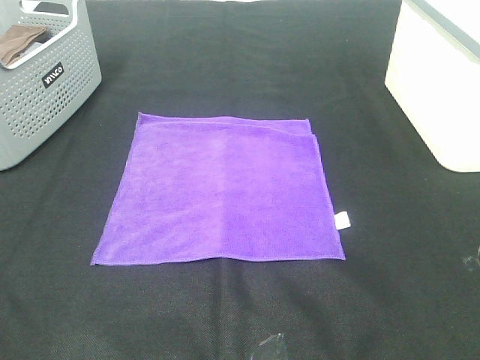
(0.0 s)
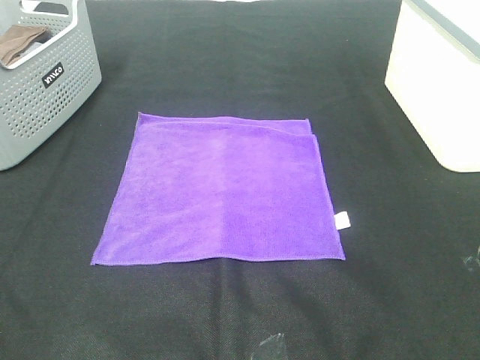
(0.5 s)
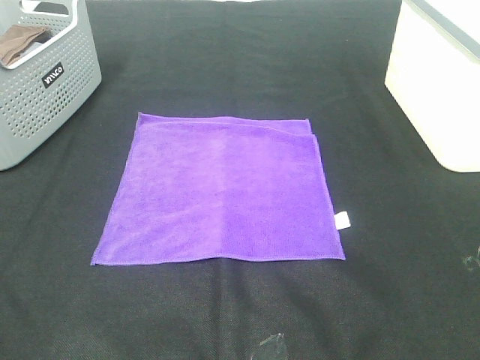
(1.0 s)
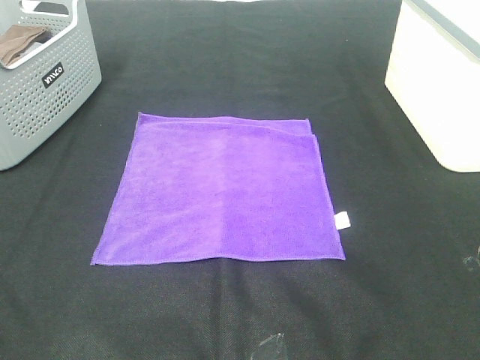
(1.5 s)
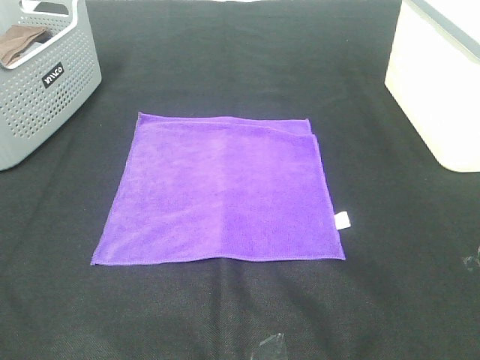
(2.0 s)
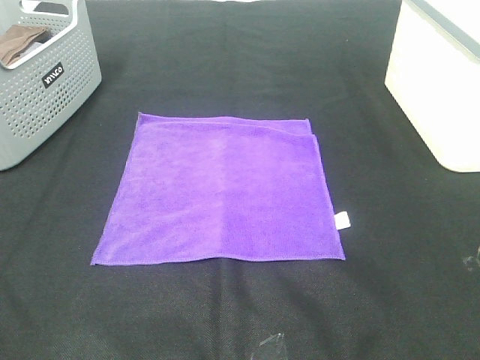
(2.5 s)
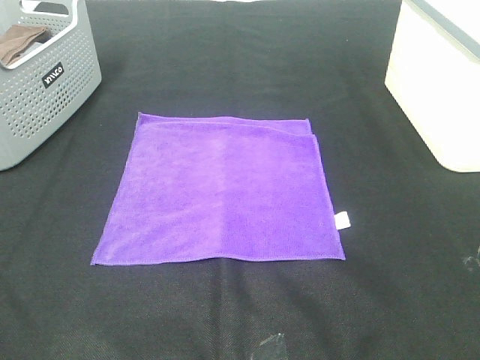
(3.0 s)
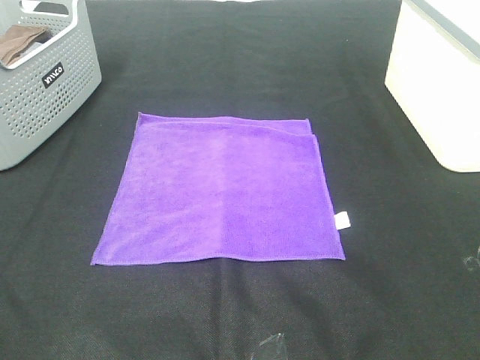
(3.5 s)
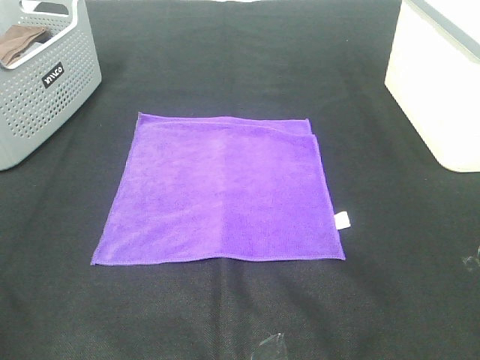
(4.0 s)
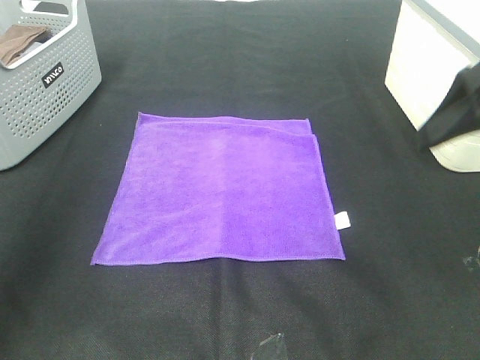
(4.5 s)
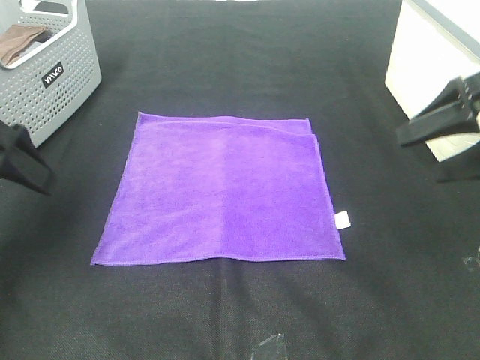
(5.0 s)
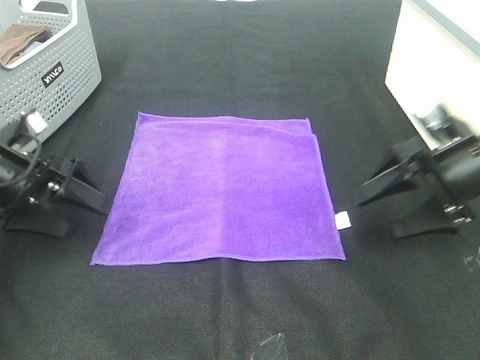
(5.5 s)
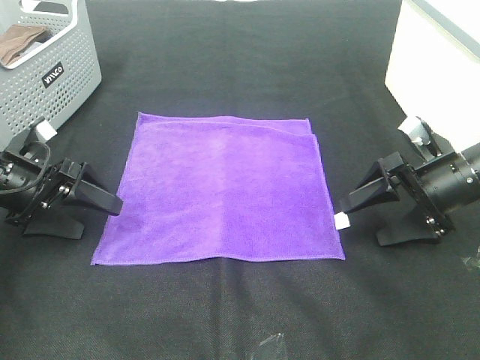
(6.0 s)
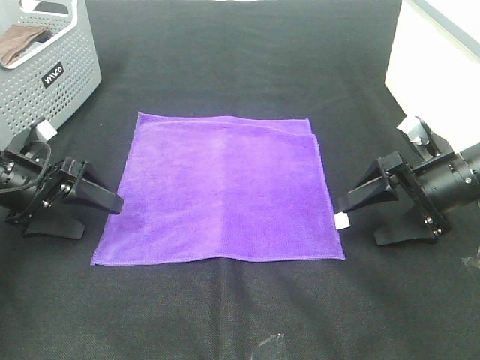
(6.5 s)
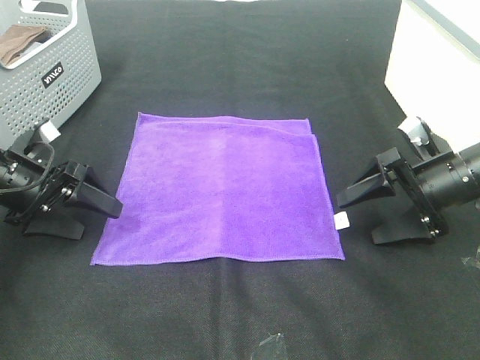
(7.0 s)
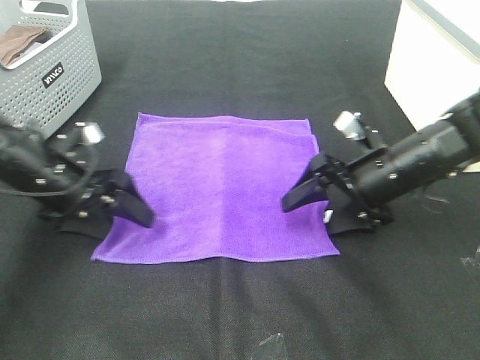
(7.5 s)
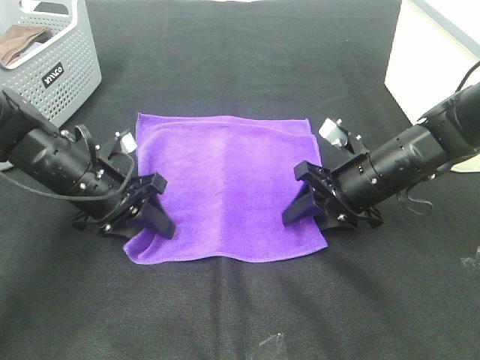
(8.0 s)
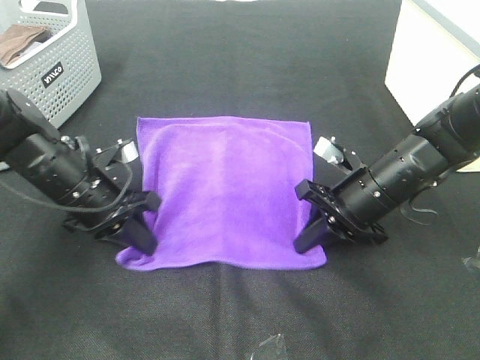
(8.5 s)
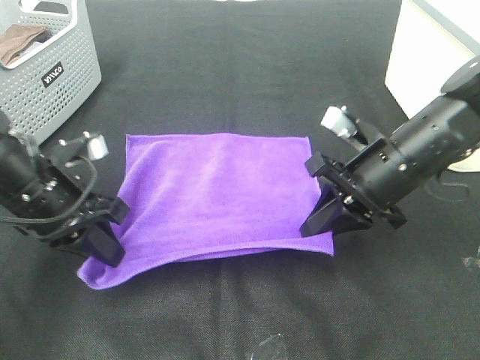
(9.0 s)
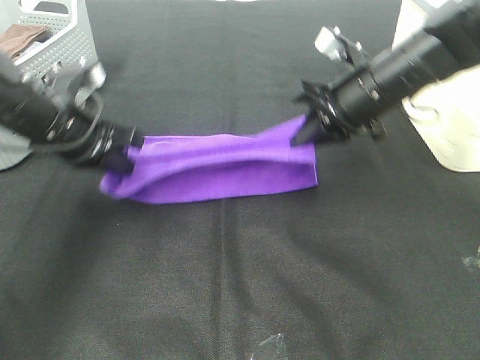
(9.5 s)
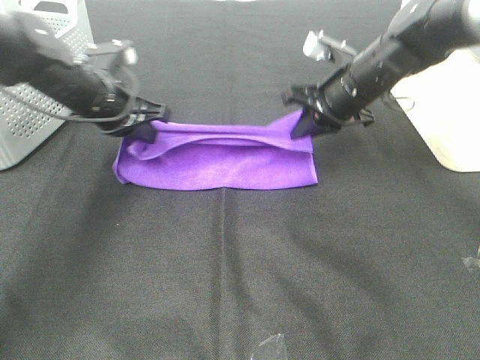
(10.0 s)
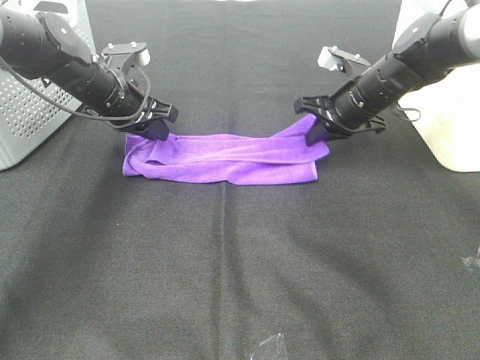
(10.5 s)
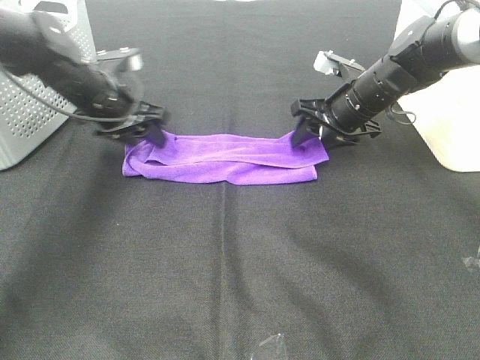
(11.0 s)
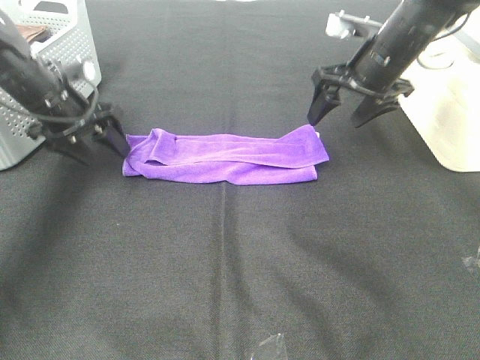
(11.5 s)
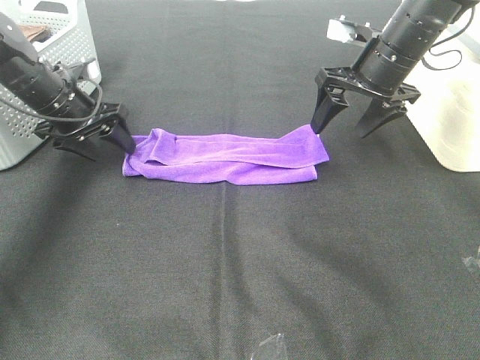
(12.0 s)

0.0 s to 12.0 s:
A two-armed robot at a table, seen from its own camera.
Task of the whole recording: Fold towels.
Step, 0.0 to 8.0 s: Left hand: grab the bottom left corner of purple towel.
Step, 0.0 to 8.0 s: Right hand: grab the bottom right corner of purple towel.
Step, 8.5 to 10.0 s: Left hand: fold the purple towel up.
Step, 8.5 to 10.0 s: Right hand: fold the purple towel up.
0.0 to 2.0 s: The two grippers keep their place.
4.0 to 6.0 s: The two grippers go roughly 30 cm downward and forward.
6.0 to 8.0 s: The right gripper moves to the left, some 10 cm, and closes up. Meanwhile the left gripper is displaced to the right by about 10 cm, and closes its fingers.
8.0 to 10.0 s: Both grippers travel together forward and upward, some 15 cm. The right gripper closes.
10.0 to 12.0 s: The right gripper goes about 5 cm upward, and opens; the left gripper is displaced to the left by roughly 5 cm, and opens.

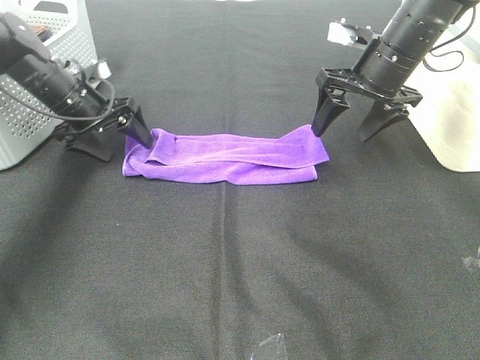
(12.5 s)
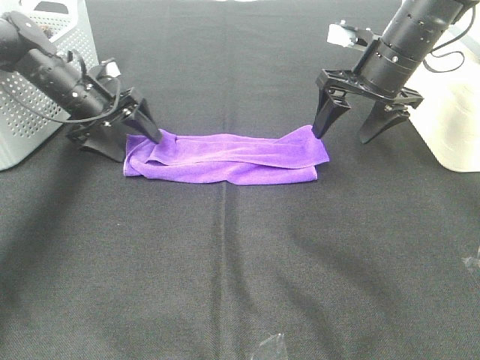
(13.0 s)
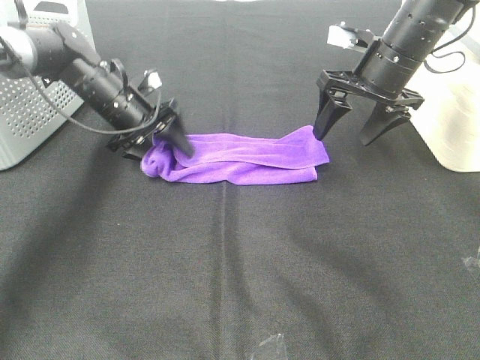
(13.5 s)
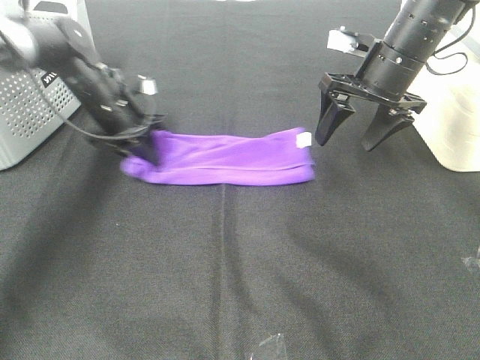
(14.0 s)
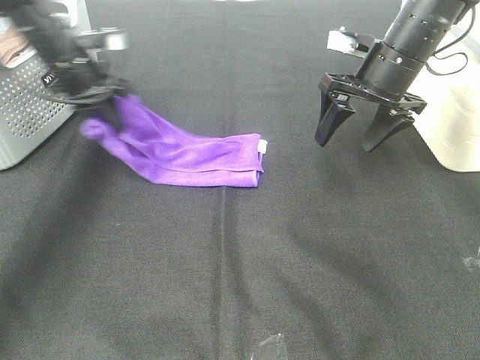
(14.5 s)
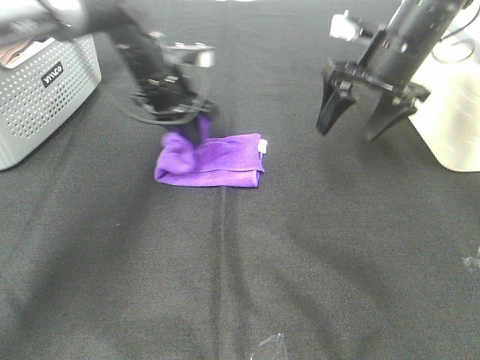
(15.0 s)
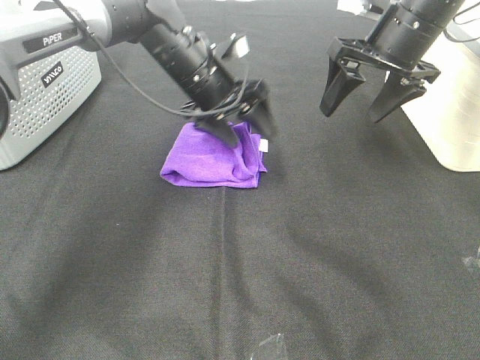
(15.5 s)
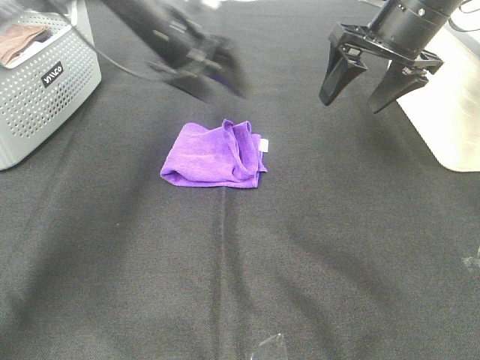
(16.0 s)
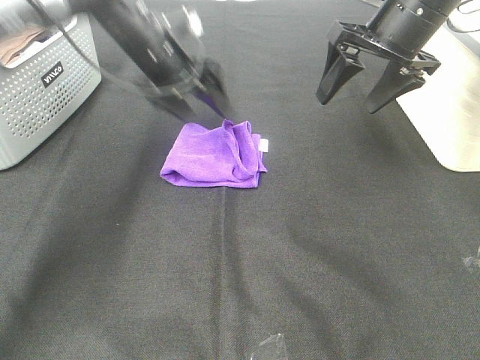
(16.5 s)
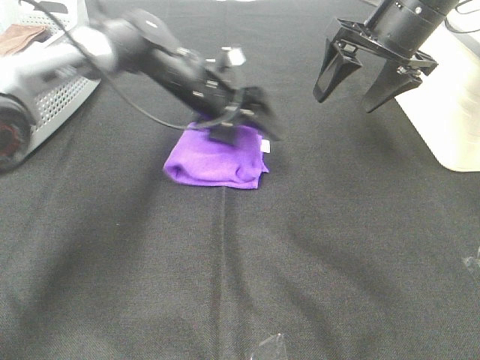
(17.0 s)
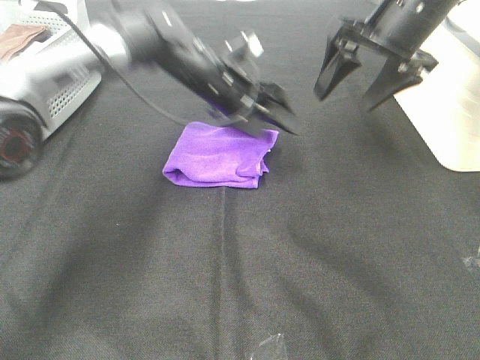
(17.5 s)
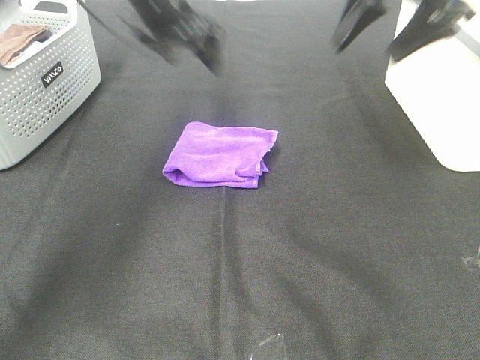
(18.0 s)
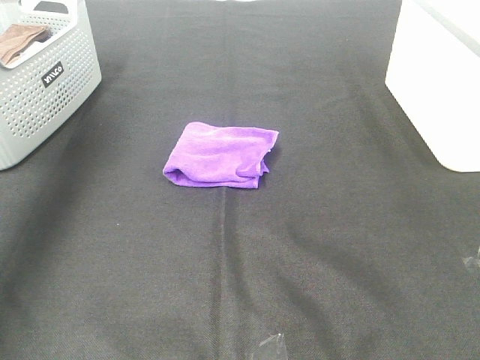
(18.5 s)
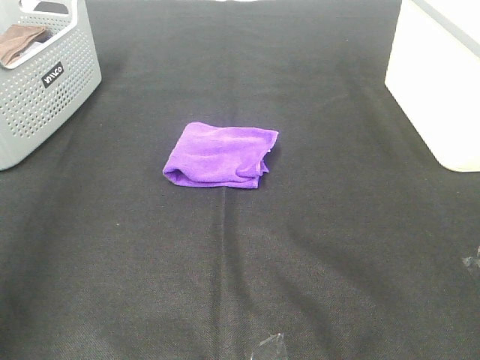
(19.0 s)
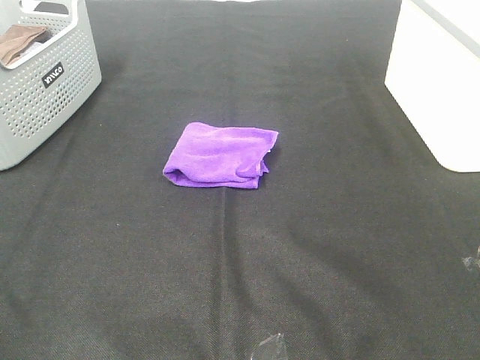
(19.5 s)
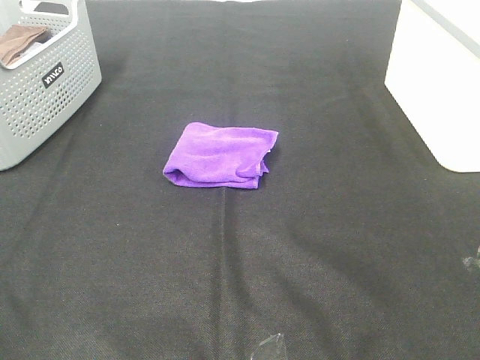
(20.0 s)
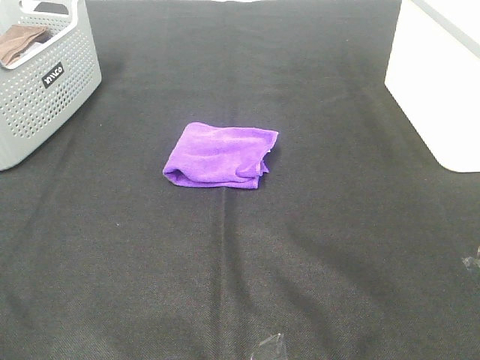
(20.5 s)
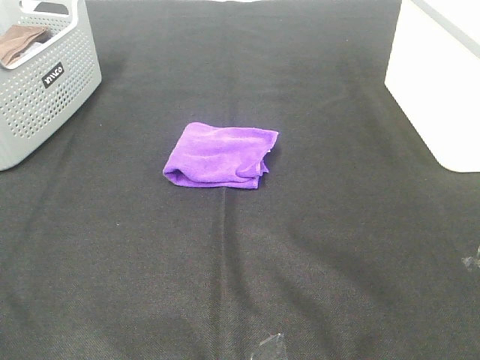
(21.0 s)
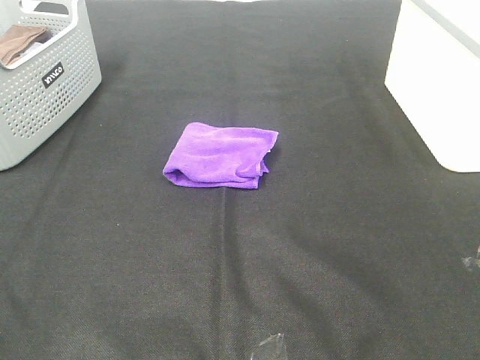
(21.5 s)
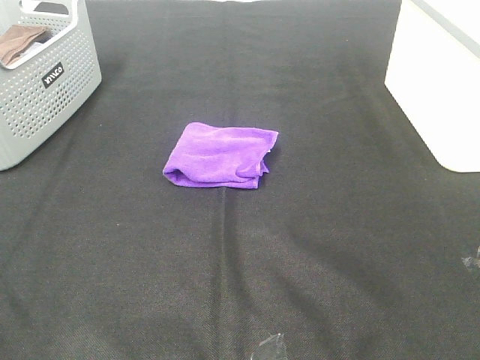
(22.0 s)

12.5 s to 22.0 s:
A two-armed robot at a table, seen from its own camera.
Task of the whole recording: Fold towels.
Step, 12.5 to 15.0 s: Left hand: fold the purple towel from left to right.
12.5 to 14.5 s: The left gripper goes approximately 5 cm upward, and closes its fingers.
14.5 to 16.5 s: The right gripper goes some 5 cm upward. The left gripper shifts some 10 cm to the right, and opens.
16.5 to 18.0 s: The two grippers go some 10 cm upward.
18.0 to 20.0 s: Both grippers move backward, roughly 40 cm.

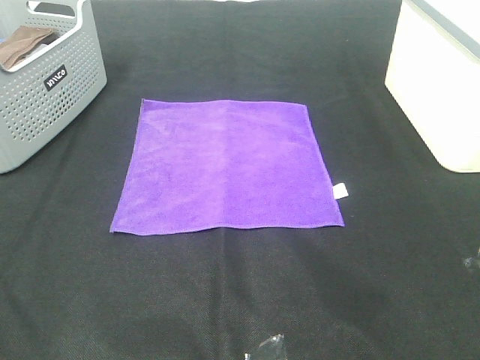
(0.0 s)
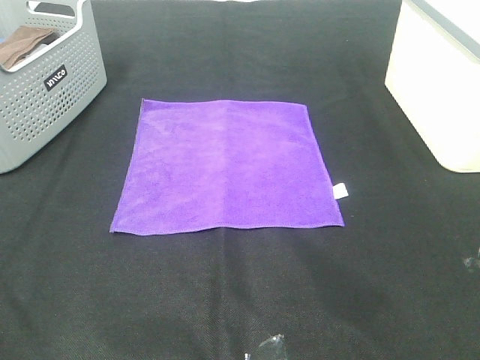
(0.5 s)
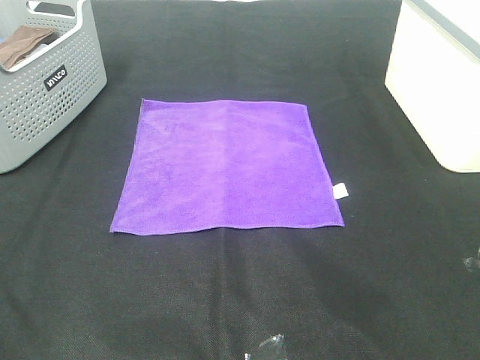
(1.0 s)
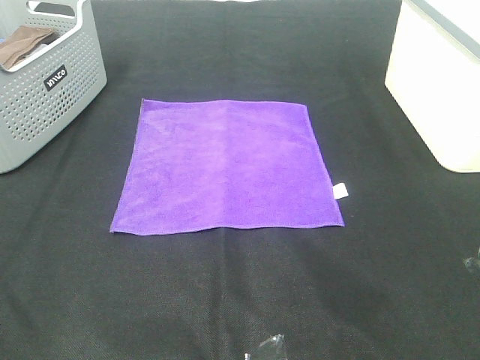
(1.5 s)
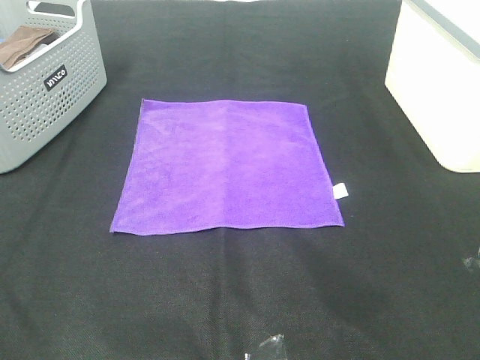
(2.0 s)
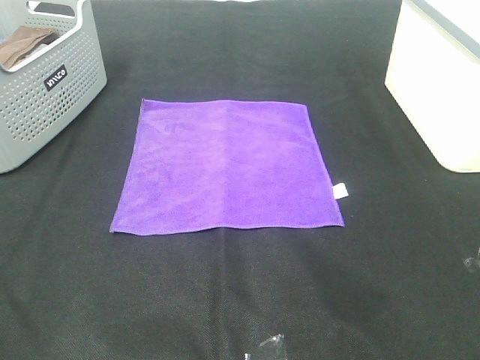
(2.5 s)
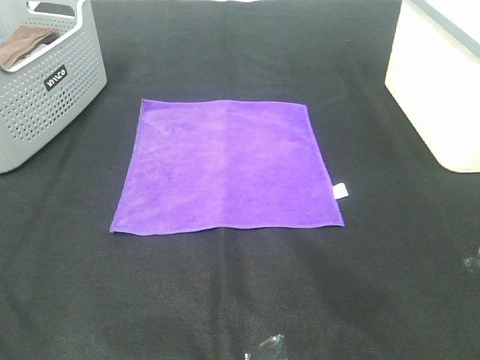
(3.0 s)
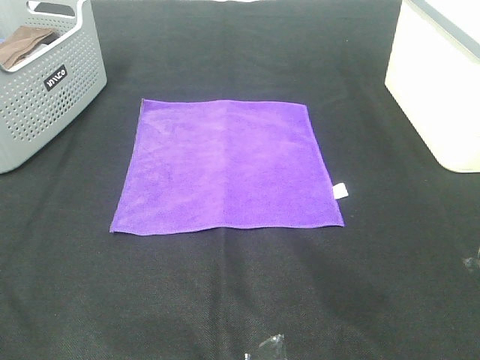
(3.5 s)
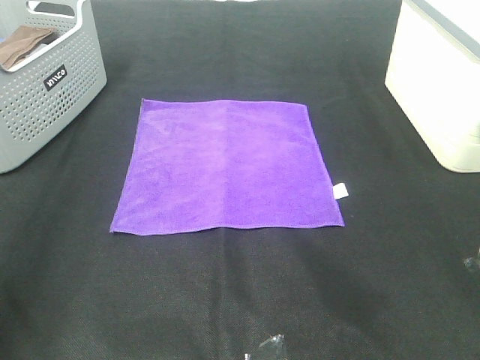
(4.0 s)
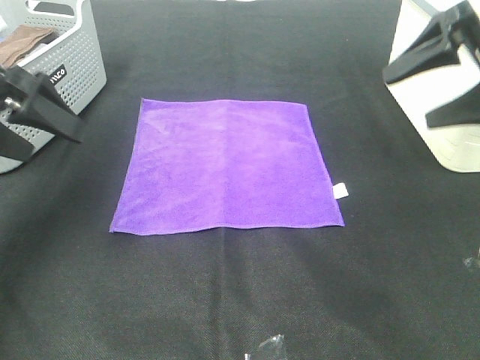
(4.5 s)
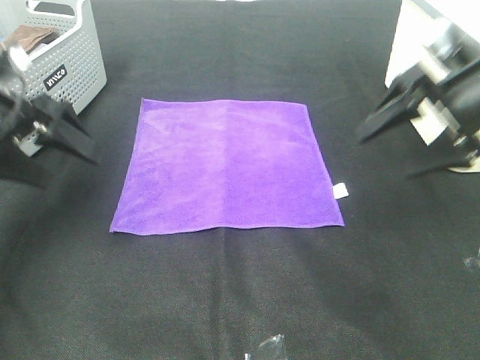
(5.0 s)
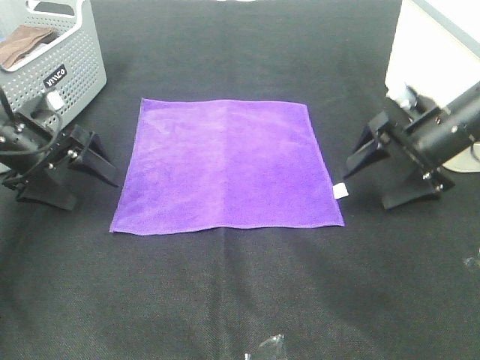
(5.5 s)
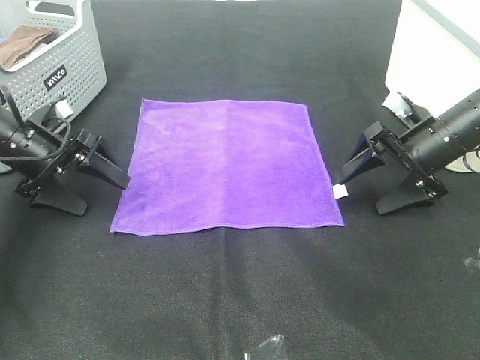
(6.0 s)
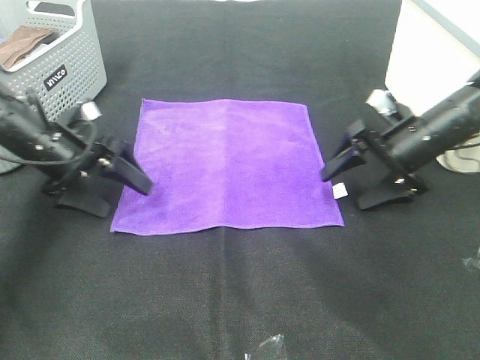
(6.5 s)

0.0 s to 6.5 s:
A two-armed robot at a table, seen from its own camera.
Task of the whole recording: Fold towels.
2.0 to 4.5 s: The grippers both shift forward by approximately 30 cm.
4.5 to 6.5 s: The right gripper is displaced downward by roughly 15 cm. The left gripper goes approximately 15 cm downward and forward.
